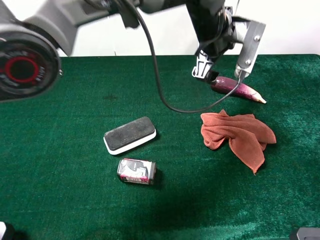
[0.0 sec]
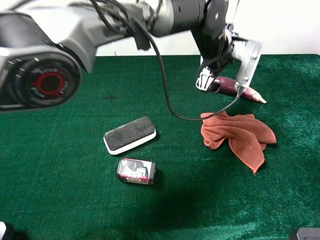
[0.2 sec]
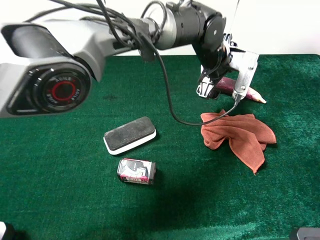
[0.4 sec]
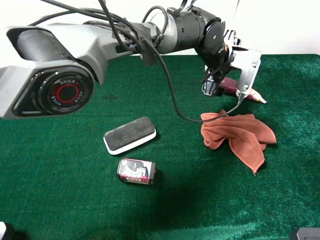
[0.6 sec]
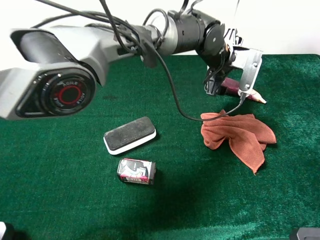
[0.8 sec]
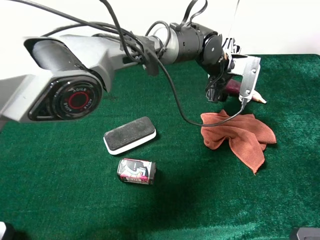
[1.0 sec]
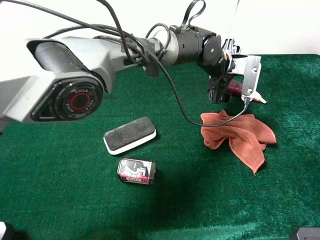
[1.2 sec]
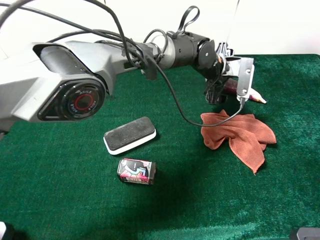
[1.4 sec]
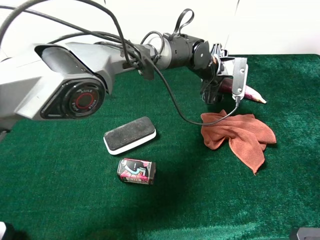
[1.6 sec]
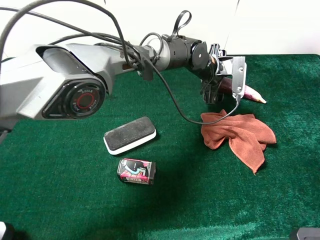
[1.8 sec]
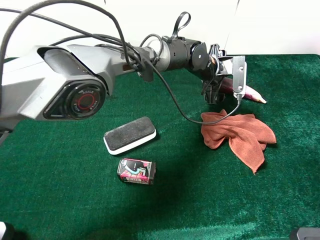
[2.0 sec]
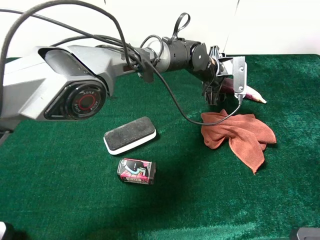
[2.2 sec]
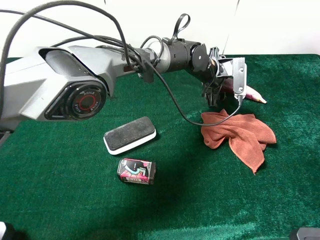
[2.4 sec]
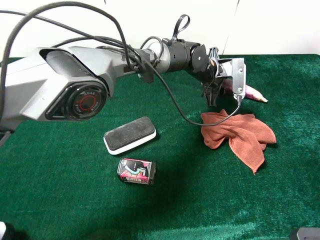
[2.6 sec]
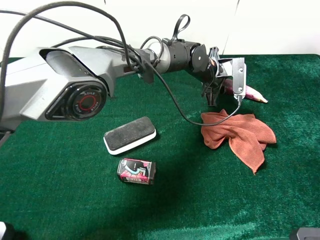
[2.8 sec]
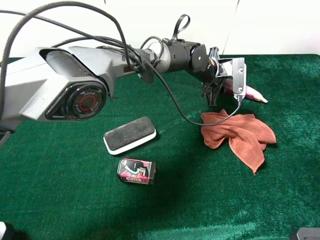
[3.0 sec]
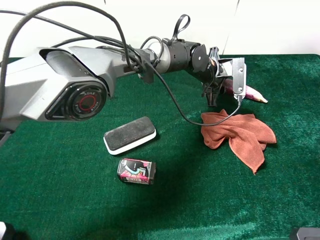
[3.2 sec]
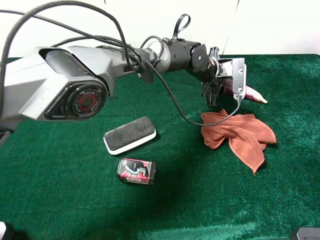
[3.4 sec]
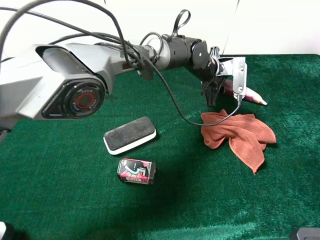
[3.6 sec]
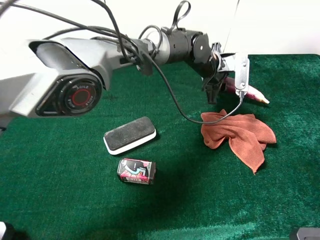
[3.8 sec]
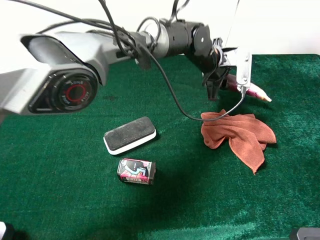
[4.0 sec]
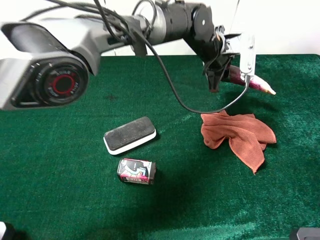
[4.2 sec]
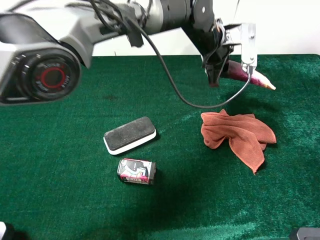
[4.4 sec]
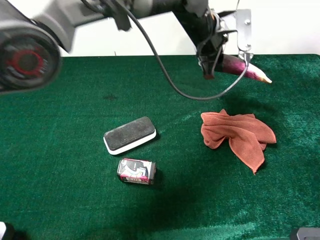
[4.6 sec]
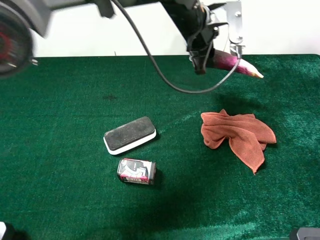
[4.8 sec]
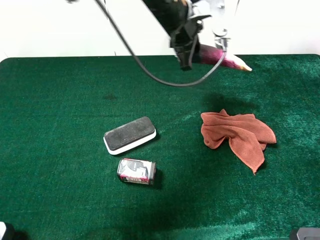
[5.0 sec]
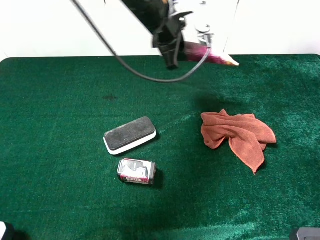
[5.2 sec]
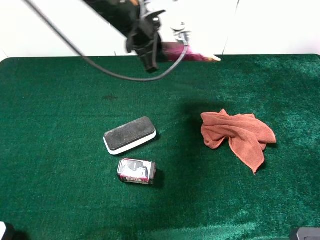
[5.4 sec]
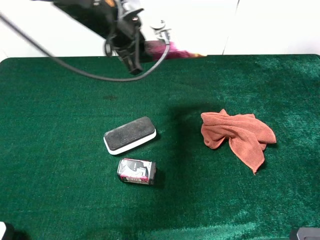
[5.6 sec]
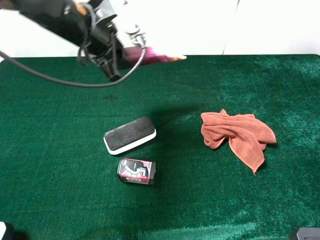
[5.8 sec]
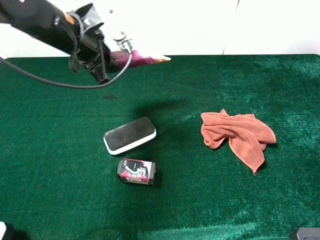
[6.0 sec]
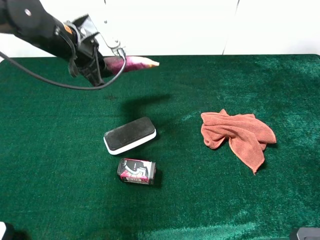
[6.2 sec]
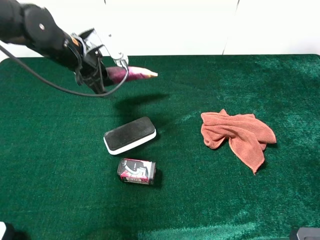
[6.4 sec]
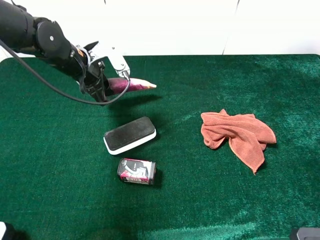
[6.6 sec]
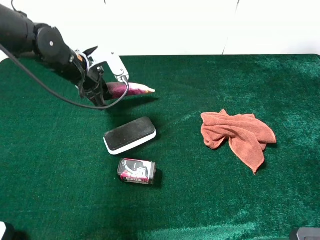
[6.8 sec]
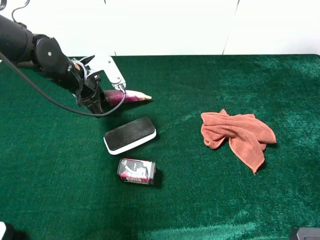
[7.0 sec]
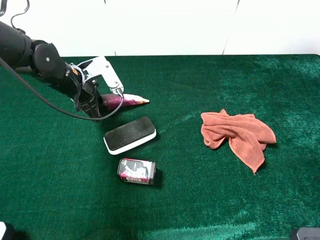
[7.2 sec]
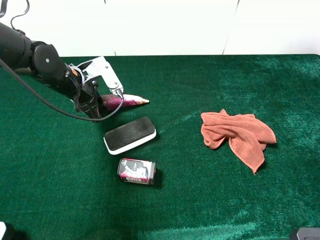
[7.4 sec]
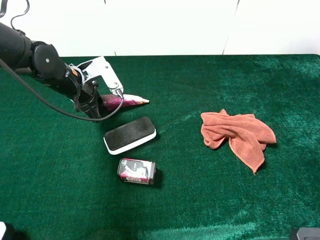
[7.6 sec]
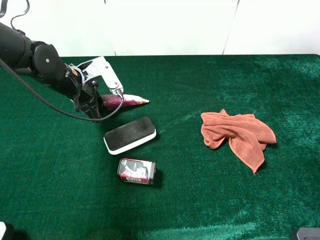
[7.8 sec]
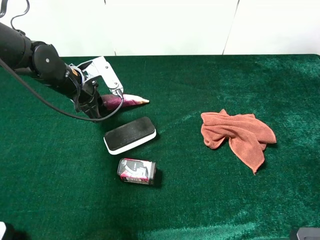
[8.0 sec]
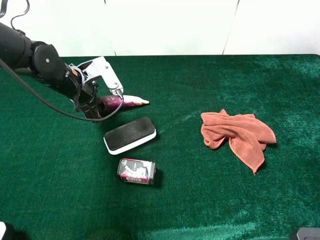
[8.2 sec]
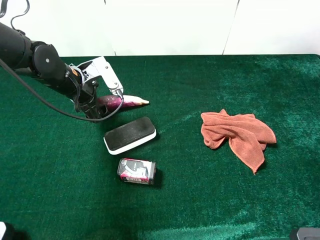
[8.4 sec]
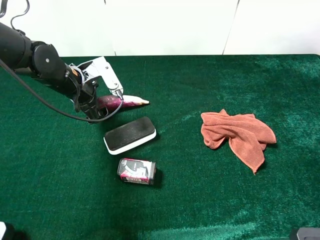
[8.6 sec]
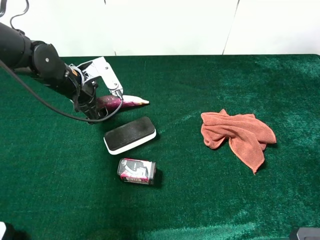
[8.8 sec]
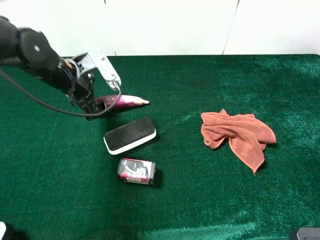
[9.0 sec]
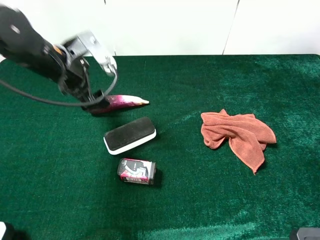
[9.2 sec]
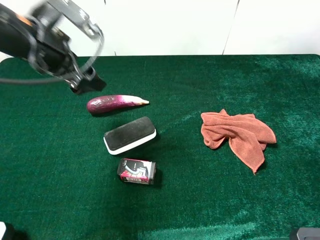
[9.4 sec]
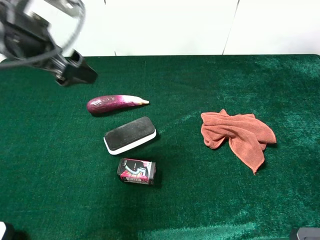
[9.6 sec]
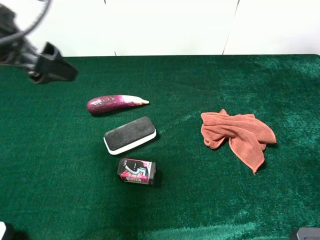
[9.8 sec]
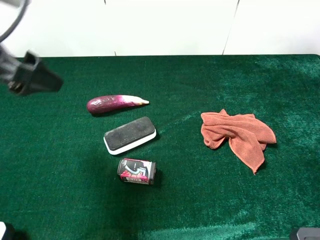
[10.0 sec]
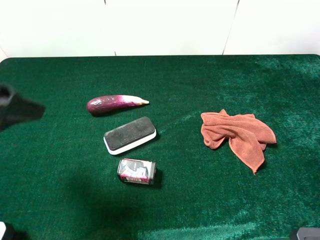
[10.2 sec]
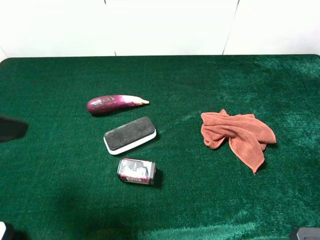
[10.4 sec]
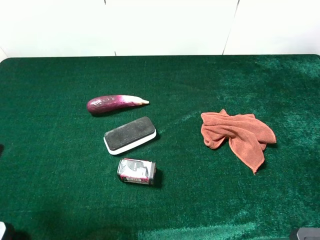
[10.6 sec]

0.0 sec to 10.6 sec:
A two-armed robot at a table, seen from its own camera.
Task of the whole recording: the gripper move the object.
Step, 0.0 sec to 2.6 sec: Grasp the eggplant with the left gripper.
Step, 2.8 sec to 8.2 sec: Place the eggplant on the table with the left gripper.
0.0 sec to 1.6 sec: The left gripper travels downward by approximately 10 cm.
1.6 sec to 3.0 sec: The left gripper closes.
3.0 sec to 4.6 sec: The left gripper goes roughly 10 cm upward.
4.6 sec to 6.0 sec: The left gripper is displaced to the left by approximately 25 cm.
6.0 sec to 7.6 sec: The left gripper travels downward by roughly 10 cm.
7.6 sec to 9.0 sec: The left gripper opens.
9.0 sec to 10.6 sec: The left gripper shifts some 25 cm backward, upward and to the left.
